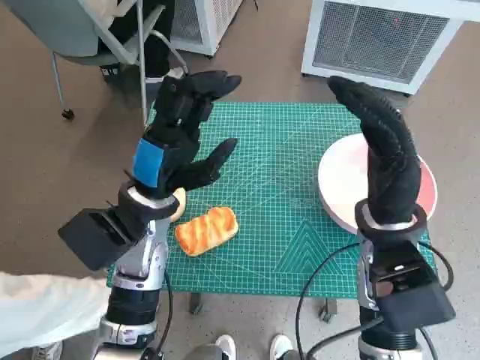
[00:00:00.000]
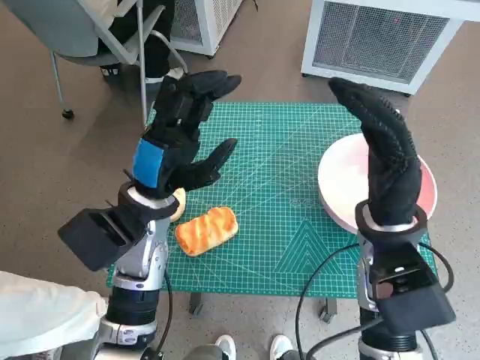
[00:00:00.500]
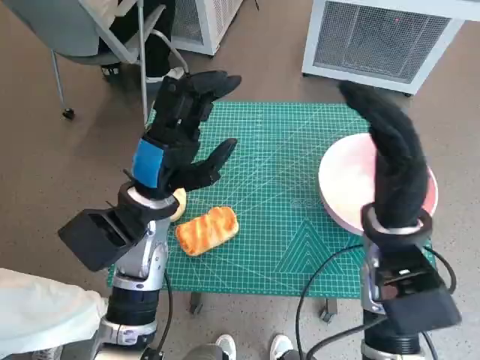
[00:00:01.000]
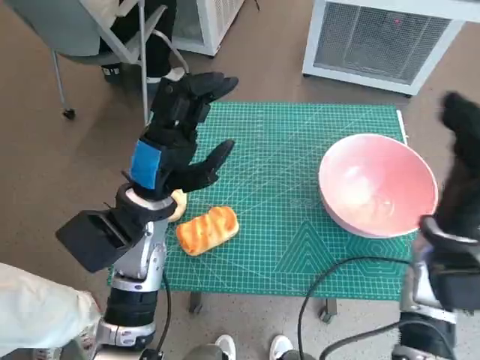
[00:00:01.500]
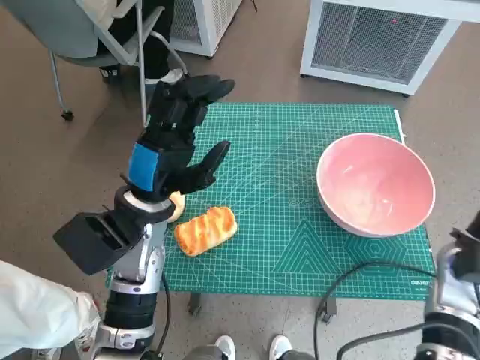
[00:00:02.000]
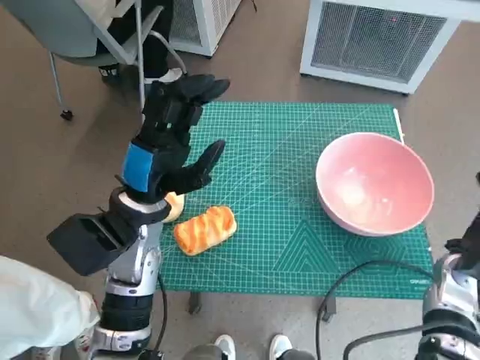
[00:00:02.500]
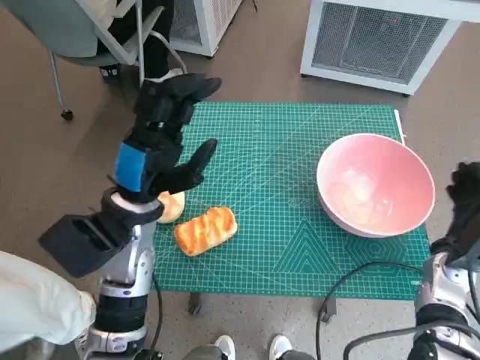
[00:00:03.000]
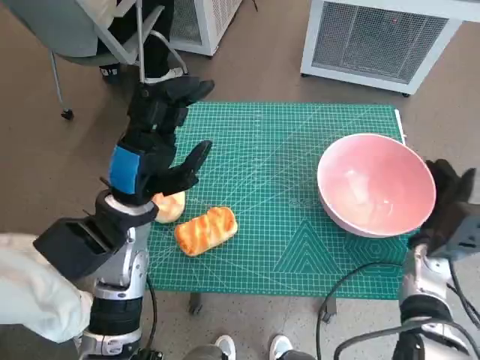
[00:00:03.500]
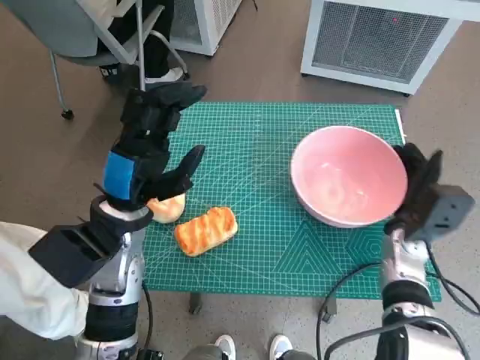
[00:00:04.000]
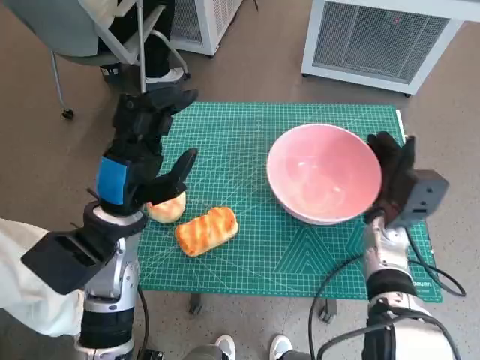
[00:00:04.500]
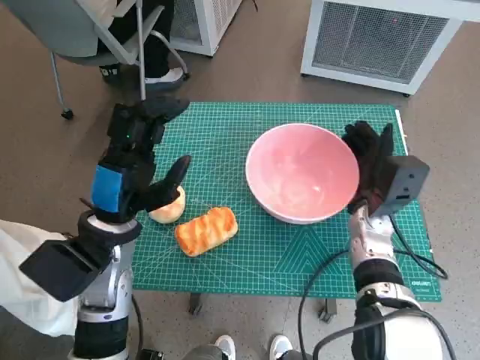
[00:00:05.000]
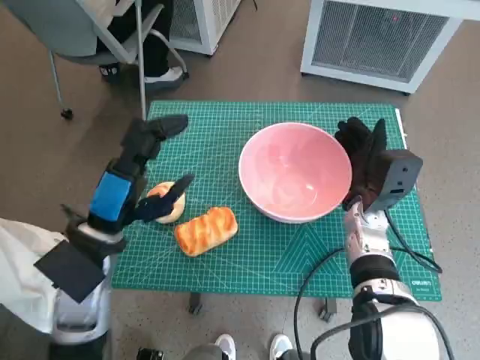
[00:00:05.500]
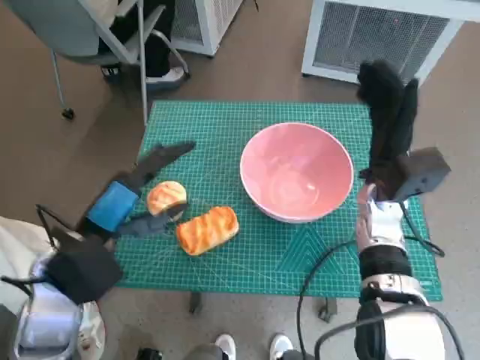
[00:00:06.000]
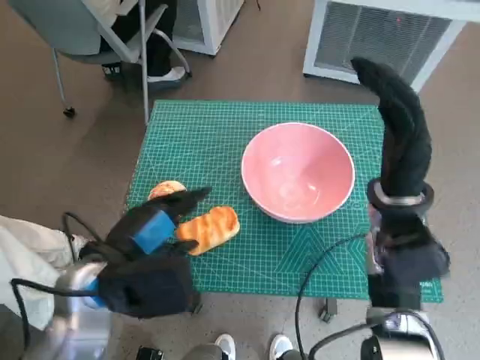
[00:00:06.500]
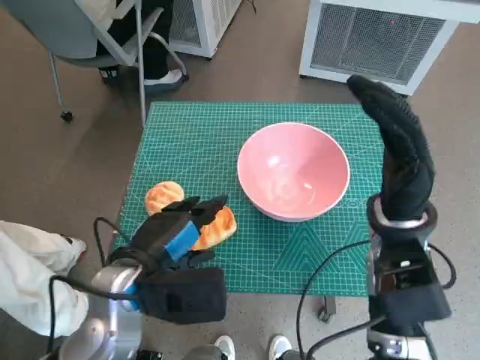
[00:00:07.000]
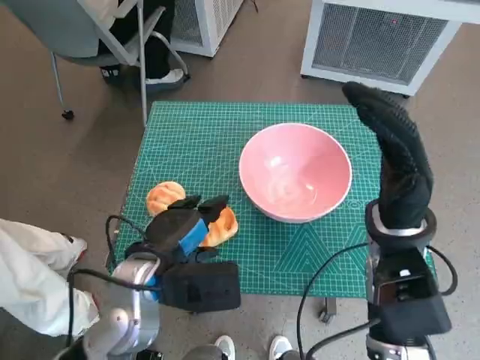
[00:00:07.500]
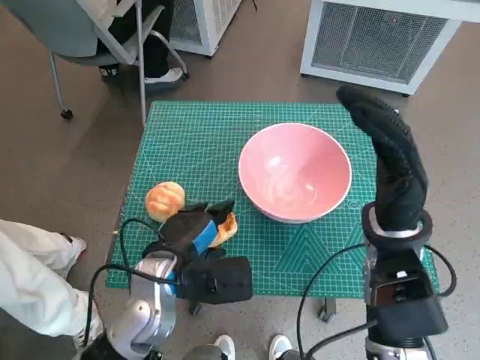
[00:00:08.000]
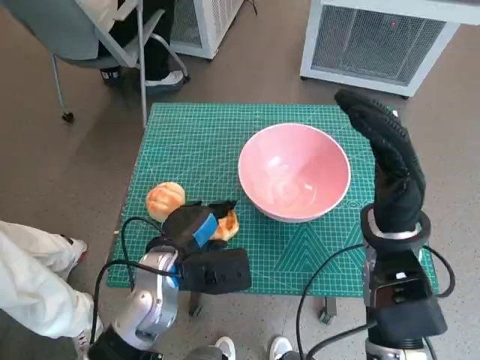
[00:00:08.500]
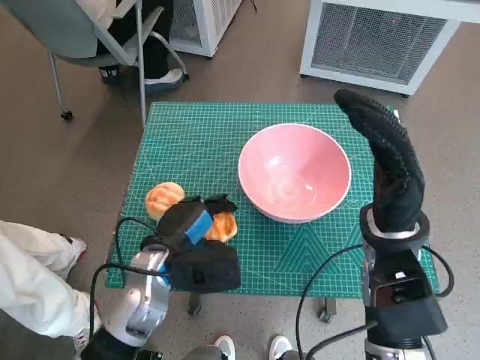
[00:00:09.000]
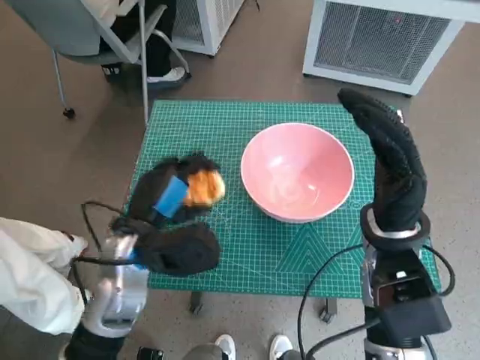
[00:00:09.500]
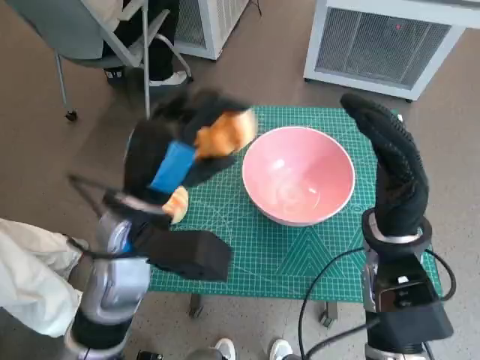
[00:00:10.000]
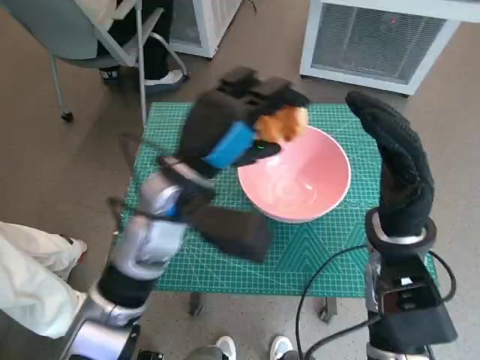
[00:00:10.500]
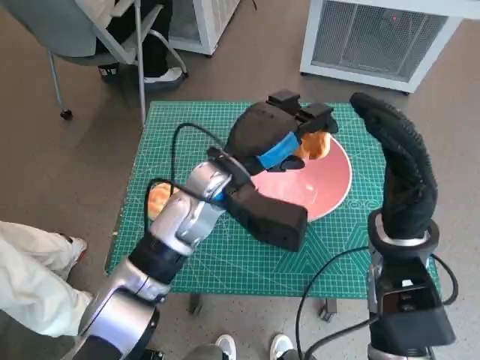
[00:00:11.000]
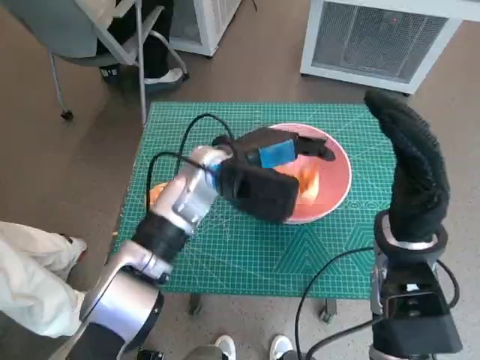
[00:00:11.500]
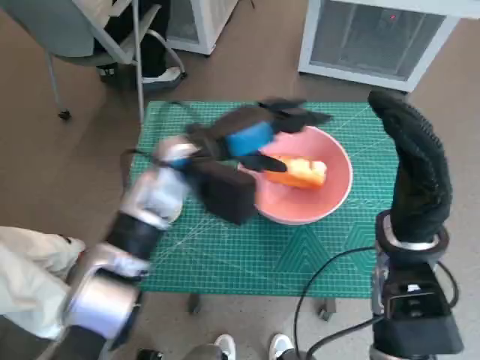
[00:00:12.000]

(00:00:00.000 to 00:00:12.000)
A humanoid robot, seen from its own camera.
Task of the whole recording: Push the bowl to the center of the table and put the bread into the bowl.
Step, 00:00:00.000 - 00:00:06.000: Move the pink bowl to the center of table with right hand.
Step, 00:00:06.500 - 00:00:09.000: Grasp the long bread with left hand.
00:00:02.000 - 00:00:04.000: The right hand heads downward, covering some 5 cm.
00:00:04.000 - 00:00:06.000: The left hand travels backward by about 5 cm, while the right hand is displaced upward and to the left by some 10 cm.
00:00:06.000 - 00:00:08.000: The right hand moves backward, approximately 10 cm; the left hand moves to the right and downward, approximately 10 cm.
00:00:08.000 - 00:00:10.000: The left hand heads upward, covering about 10 cm.
00:00:10.000 - 00:00:12.000: The left hand shifts some 10 cm forward.

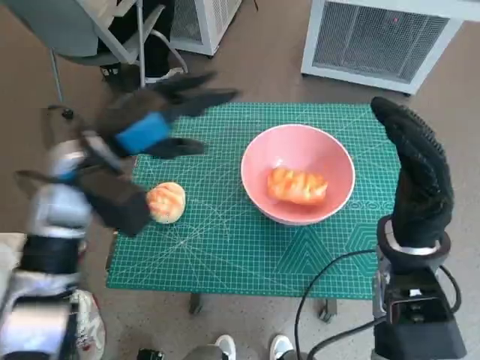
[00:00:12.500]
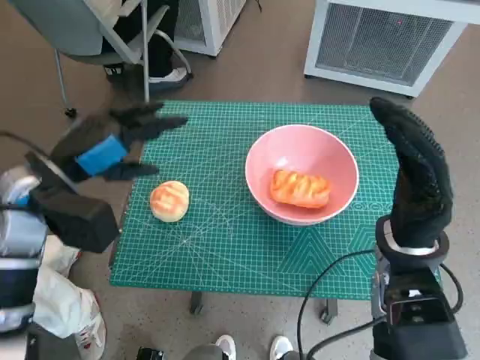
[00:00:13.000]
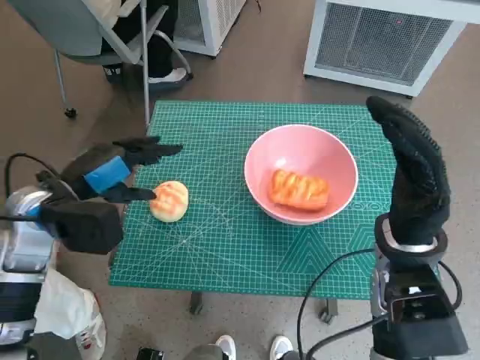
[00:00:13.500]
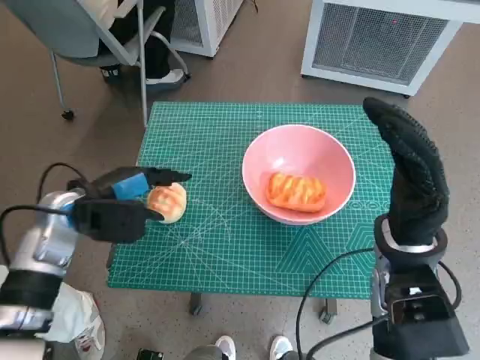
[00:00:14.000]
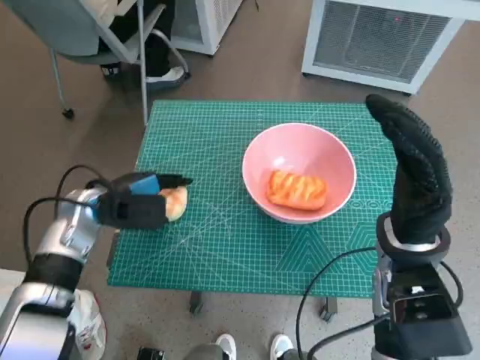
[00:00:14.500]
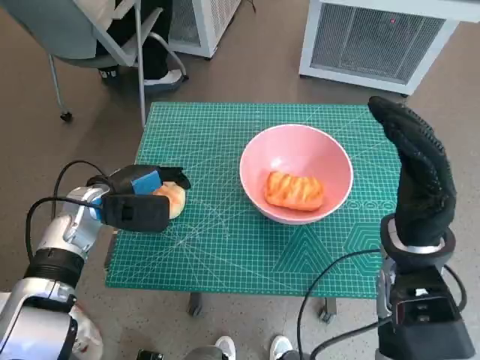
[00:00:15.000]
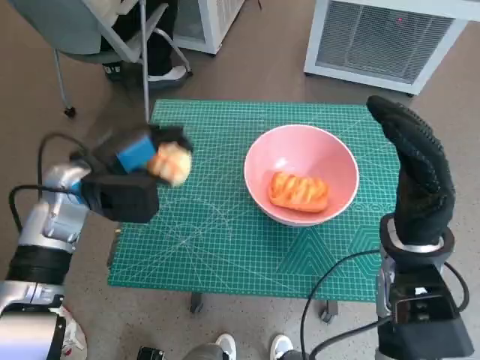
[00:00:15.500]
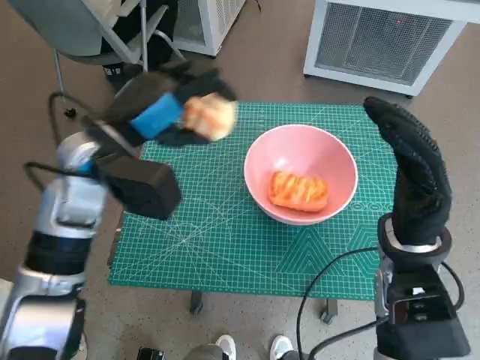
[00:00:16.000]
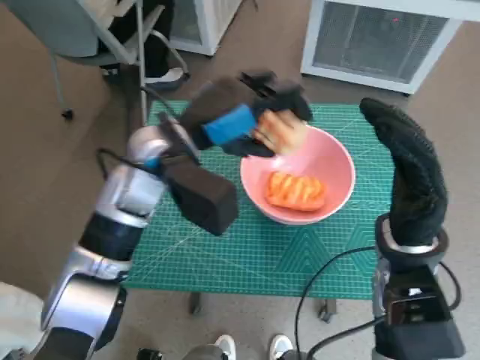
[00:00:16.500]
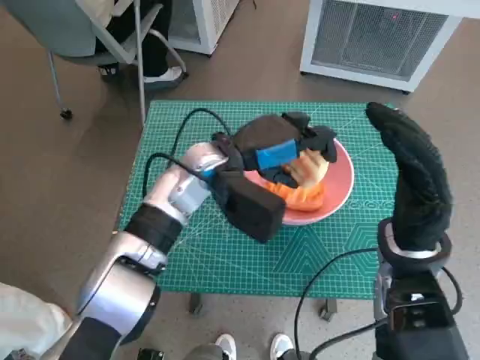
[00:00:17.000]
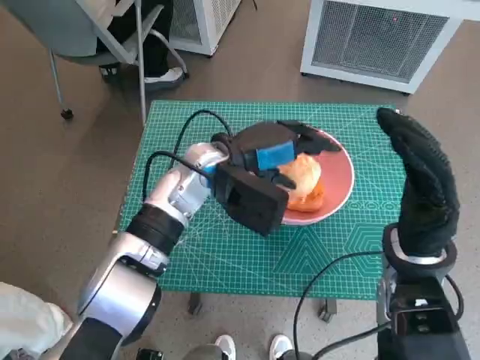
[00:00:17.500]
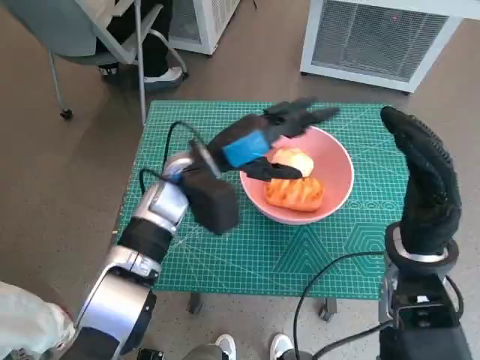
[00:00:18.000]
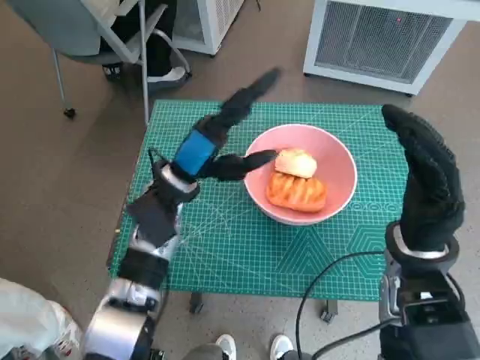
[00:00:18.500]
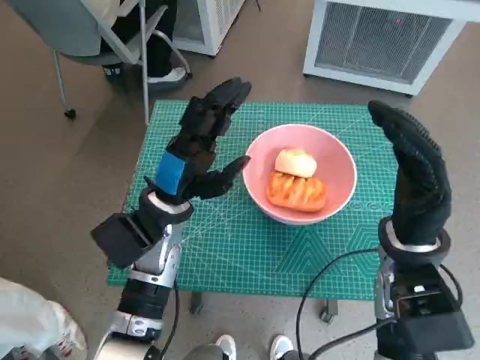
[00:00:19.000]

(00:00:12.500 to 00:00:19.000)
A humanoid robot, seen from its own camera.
Task of the whole recording: Push the bowl to the center of the table and put the bread into the bowl.
Step, 00:00:12.500 - 00:00:14.000: Grasp the round bread with left hand.
Step, 00:00:14.500 - 00:00:18.000: Place the round bread in pink bowl with left hand.
00:00:12.500 - 00:00:14.500: The left hand goes some 10 cm downward and to the left.
00:00:14.500 - 00:00:17.000: The left hand shifts some 20 cm to the right.
00:00:17.000 - 00:00:19.000: The left hand is displaced to the left, backward and downward by some 10 cm.
